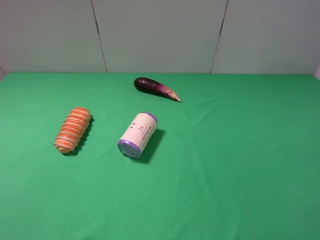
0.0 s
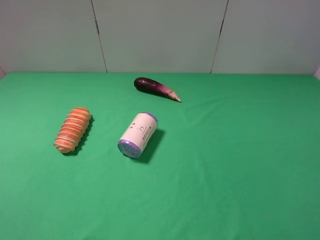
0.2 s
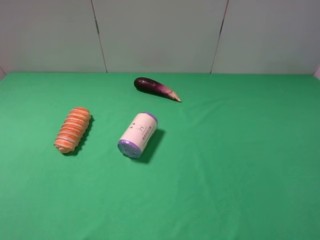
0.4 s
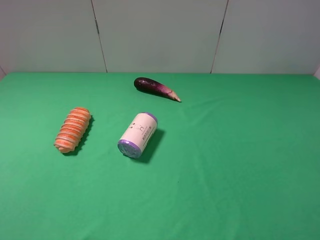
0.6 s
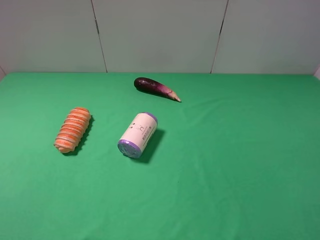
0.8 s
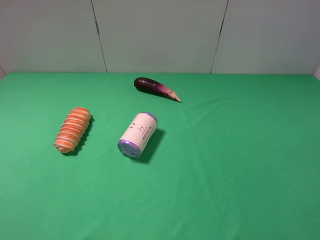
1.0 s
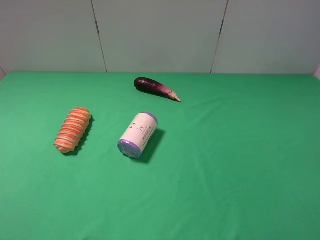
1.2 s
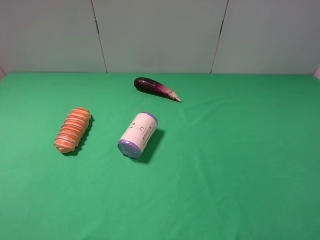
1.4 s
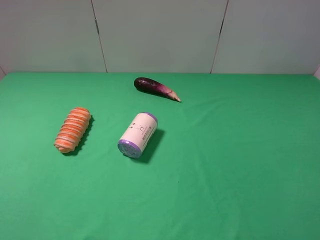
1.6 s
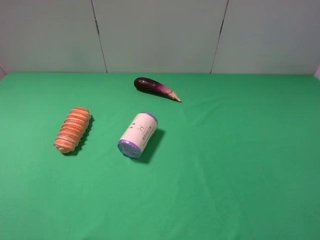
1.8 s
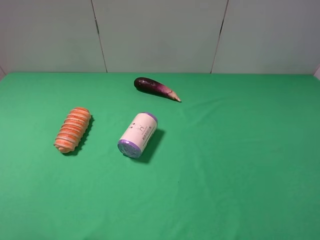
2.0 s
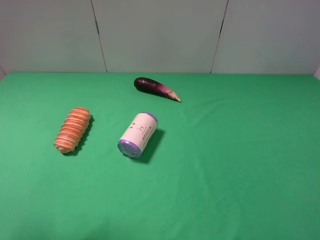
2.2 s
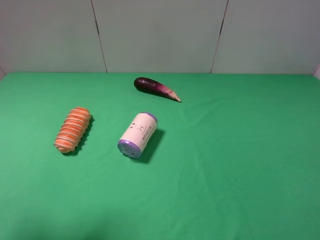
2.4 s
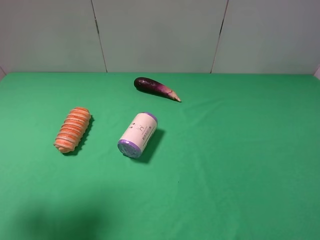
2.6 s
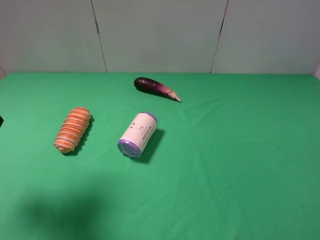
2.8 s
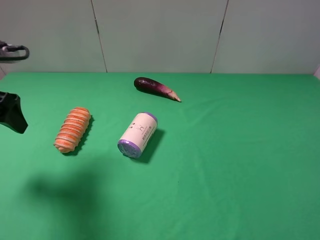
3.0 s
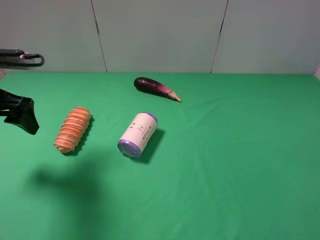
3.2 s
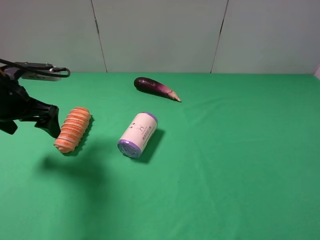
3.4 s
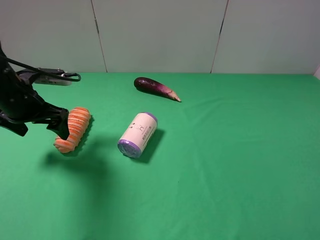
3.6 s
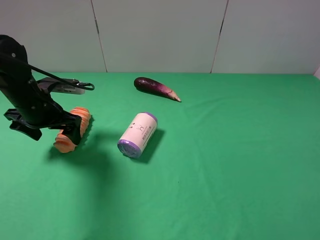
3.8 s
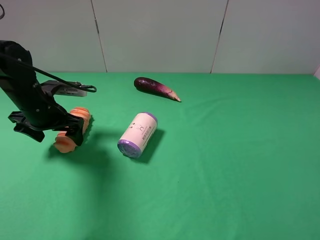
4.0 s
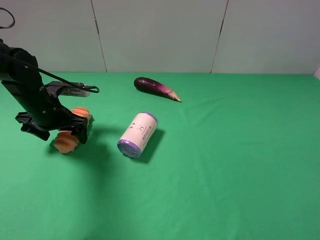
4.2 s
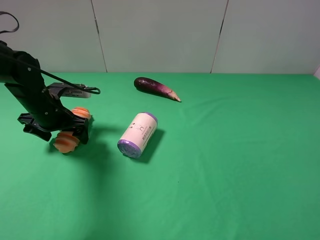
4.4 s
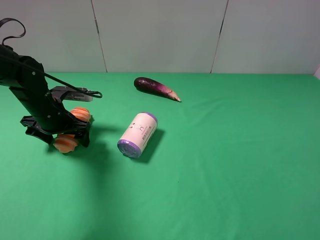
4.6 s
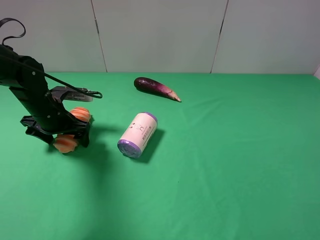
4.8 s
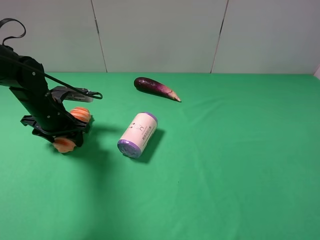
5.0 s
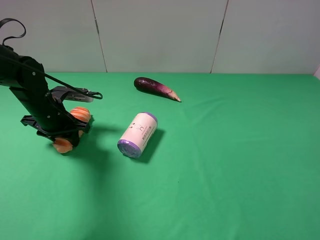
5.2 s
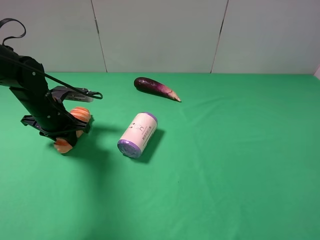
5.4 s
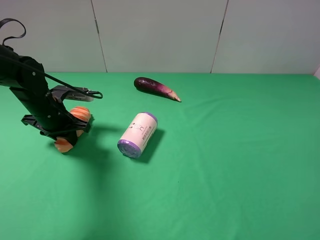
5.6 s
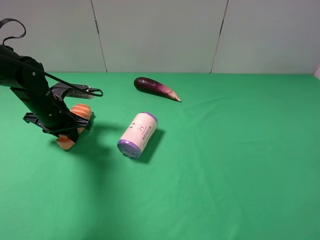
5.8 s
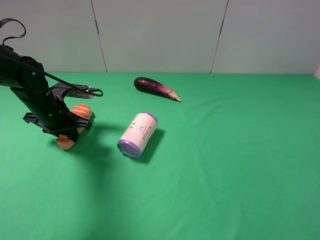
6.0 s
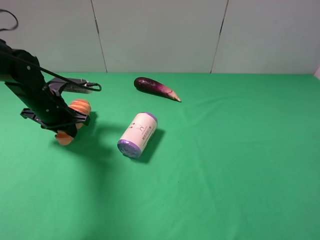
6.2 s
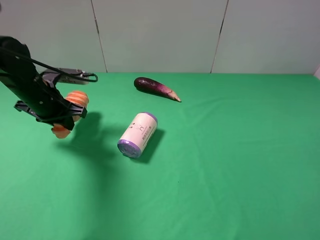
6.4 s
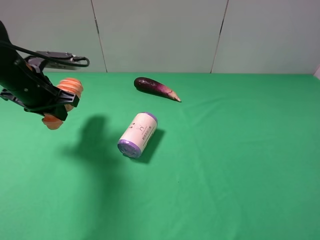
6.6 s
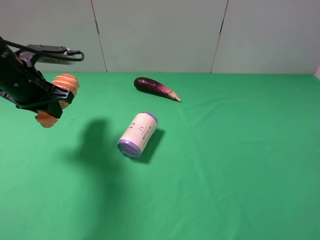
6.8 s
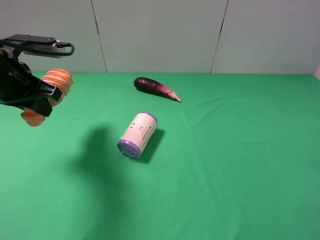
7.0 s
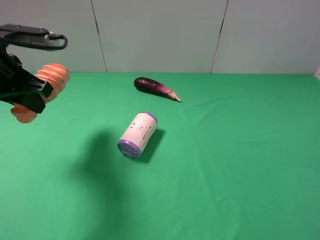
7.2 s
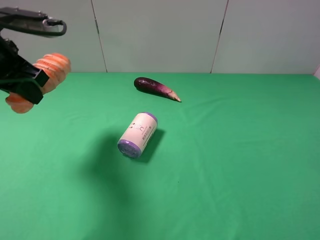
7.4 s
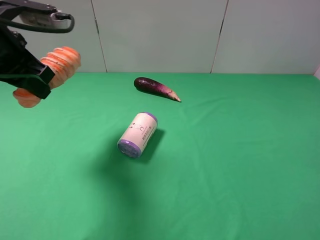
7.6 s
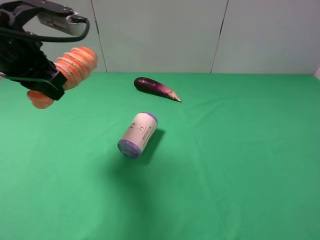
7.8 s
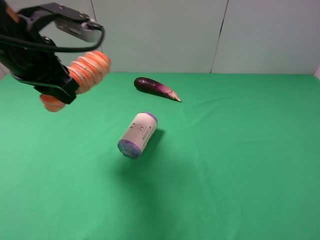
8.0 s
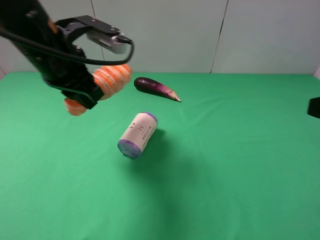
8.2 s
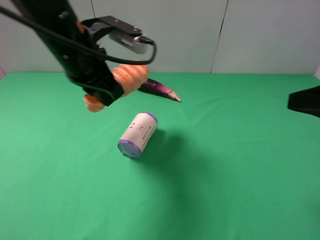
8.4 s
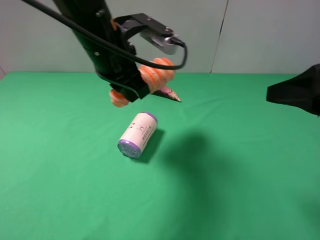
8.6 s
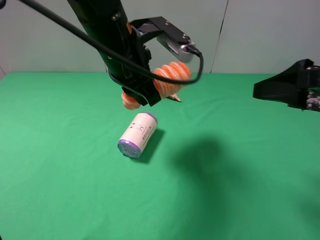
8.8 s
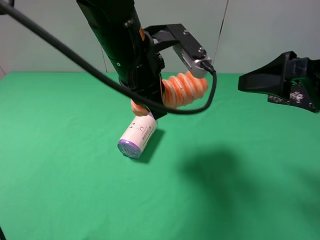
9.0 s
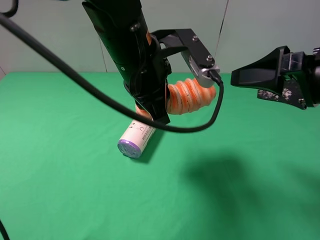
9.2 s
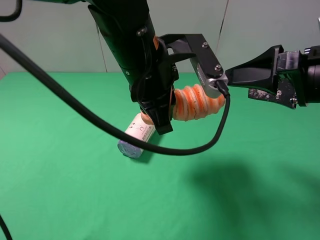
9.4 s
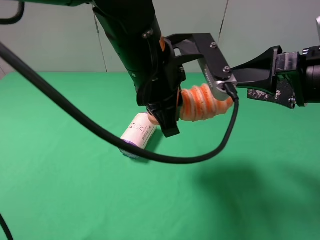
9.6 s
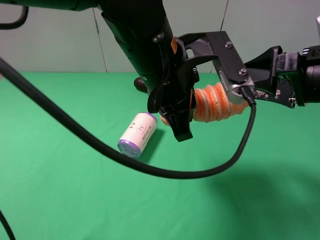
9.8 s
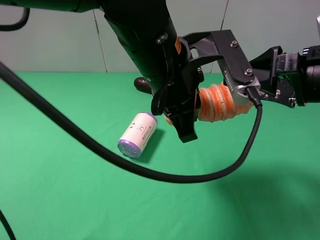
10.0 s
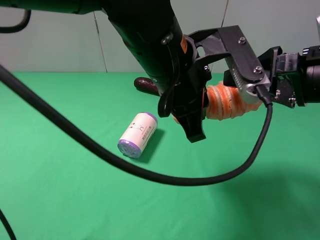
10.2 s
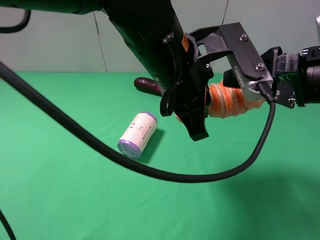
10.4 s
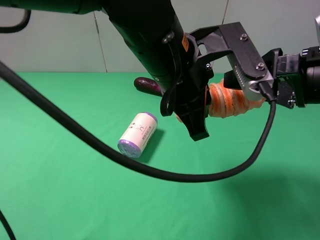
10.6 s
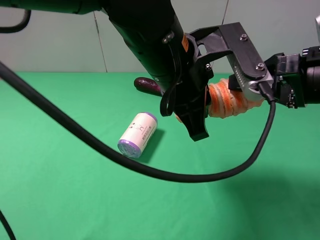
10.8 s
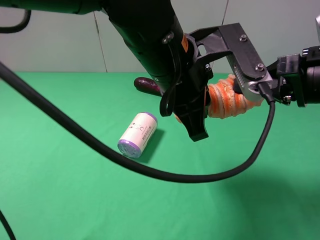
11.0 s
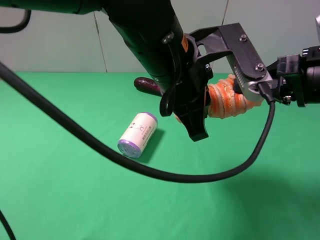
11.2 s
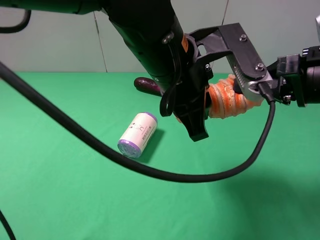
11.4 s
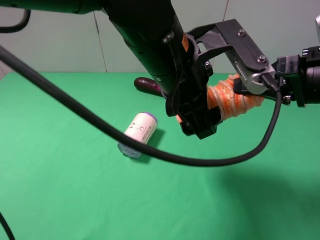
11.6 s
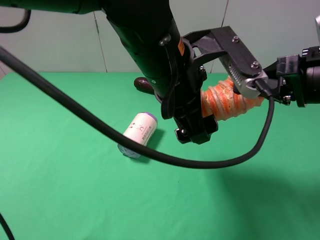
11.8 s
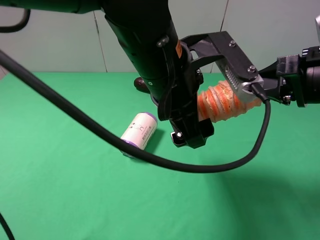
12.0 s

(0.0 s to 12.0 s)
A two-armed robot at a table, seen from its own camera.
Task of the whole recording: use the left gripper to pick up the item and transfer it from the left gripper to the right gripper.
Step, 0.0 s - 5.8 s: Use the left gripper to grab the long bread on the left side of the table.
1.6 s - 3.0 s: The left gripper travels forward by approximately 20 cm.
3.0 s - 4.4 s: The left gripper is displaced downward, forward and to the right by some 15 cm.
4.4 s - 6.0 s: The left gripper closes.
6.0 s - 7.6 s: The left gripper shifts some 20 cm upward.
7.6 s - 9.0 s: The right gripper travels forward by some 15 cm; the left gripper heads to the right, covering roughly 20 cm.
9.0 s - 10.4 s: The left gripper ends up approximately 5 cm from where it was.
10.4 s - 12.0 s: The left gripper opens; the right gripper closes up.

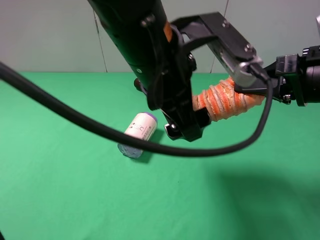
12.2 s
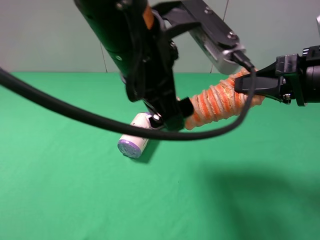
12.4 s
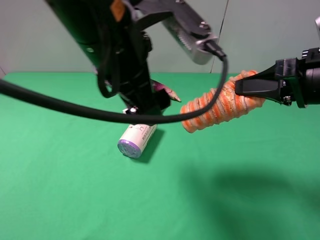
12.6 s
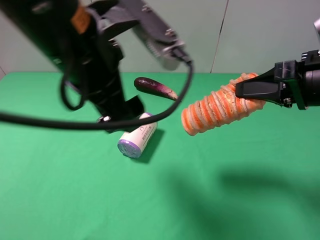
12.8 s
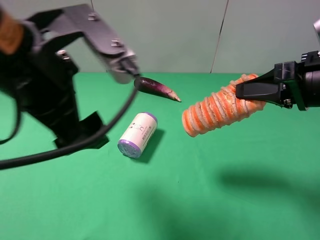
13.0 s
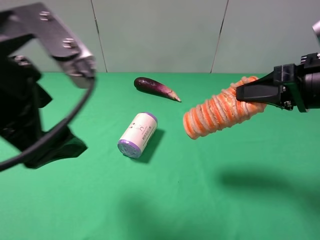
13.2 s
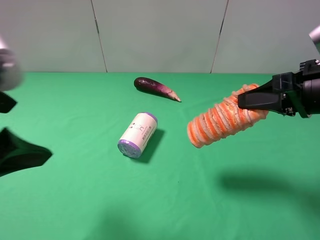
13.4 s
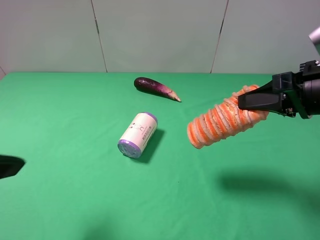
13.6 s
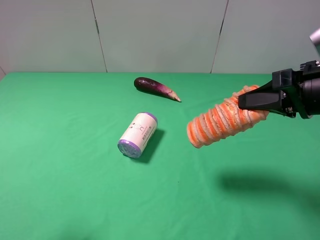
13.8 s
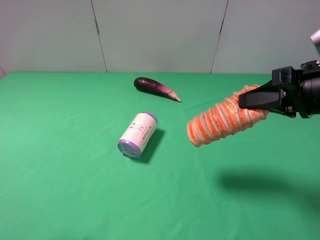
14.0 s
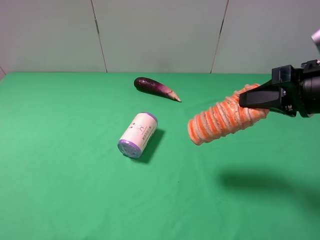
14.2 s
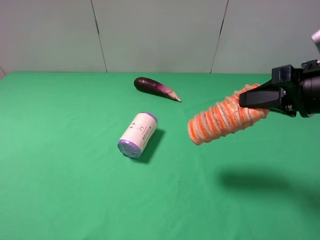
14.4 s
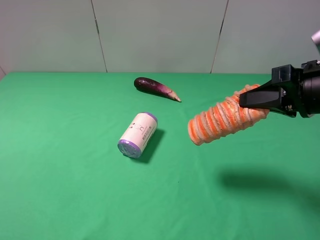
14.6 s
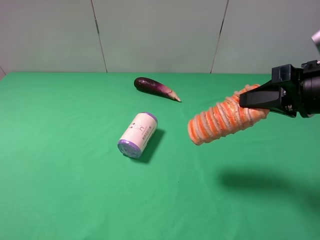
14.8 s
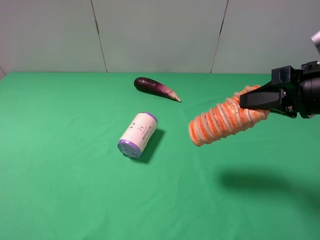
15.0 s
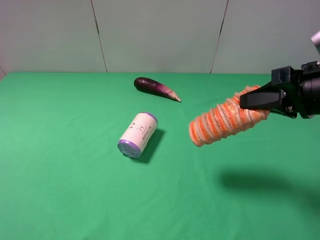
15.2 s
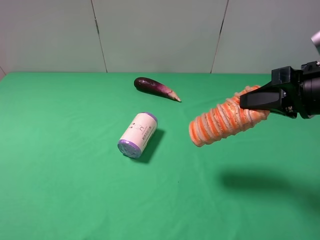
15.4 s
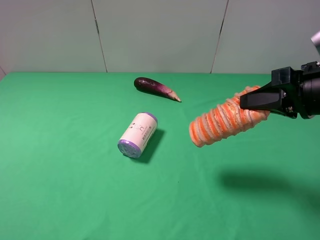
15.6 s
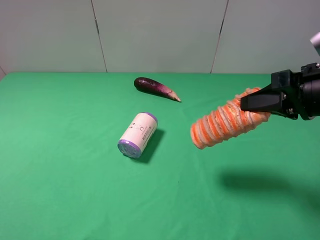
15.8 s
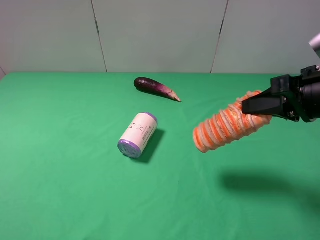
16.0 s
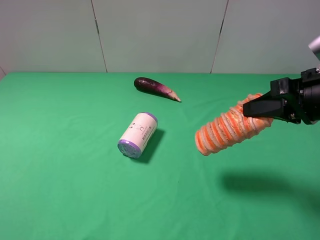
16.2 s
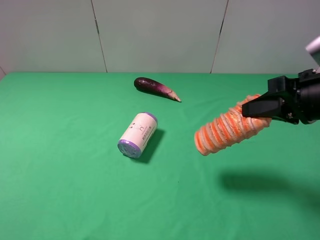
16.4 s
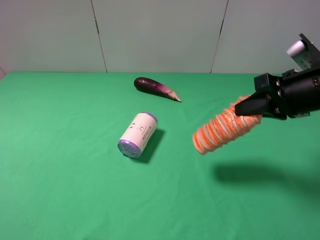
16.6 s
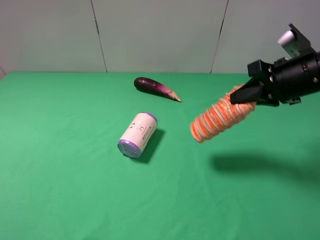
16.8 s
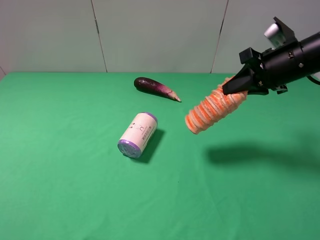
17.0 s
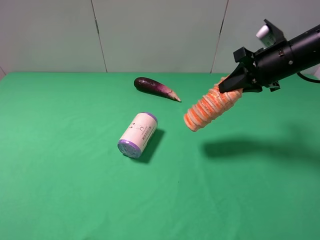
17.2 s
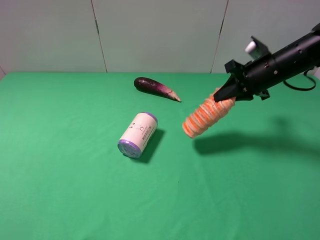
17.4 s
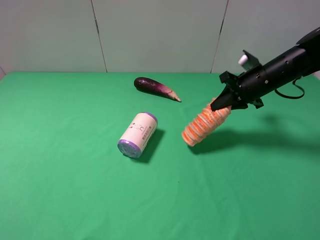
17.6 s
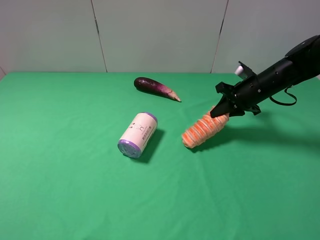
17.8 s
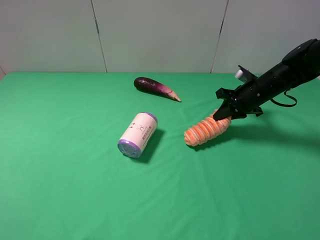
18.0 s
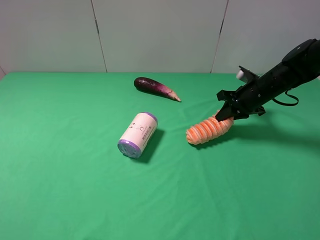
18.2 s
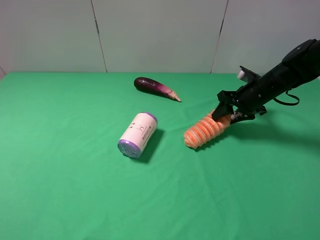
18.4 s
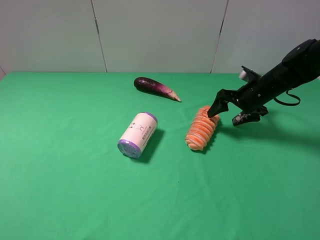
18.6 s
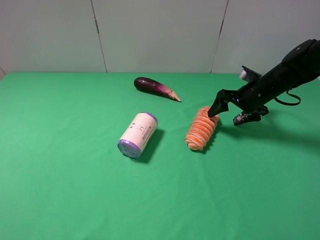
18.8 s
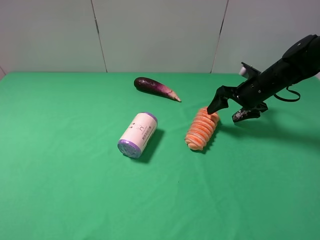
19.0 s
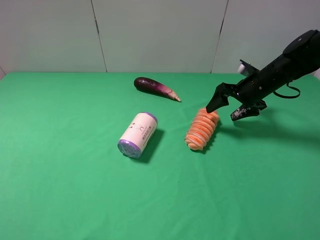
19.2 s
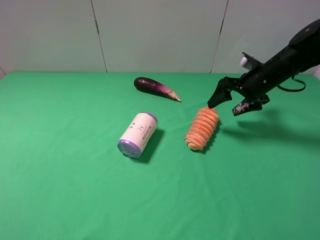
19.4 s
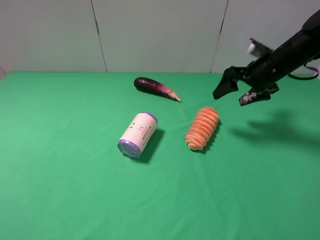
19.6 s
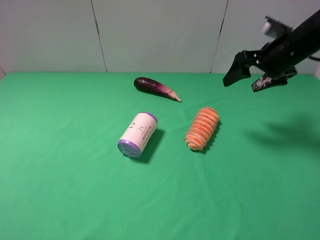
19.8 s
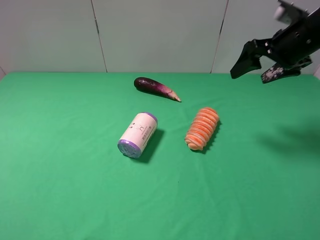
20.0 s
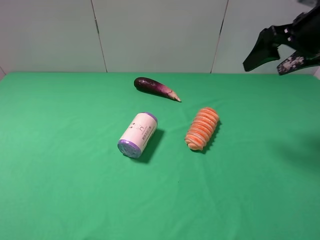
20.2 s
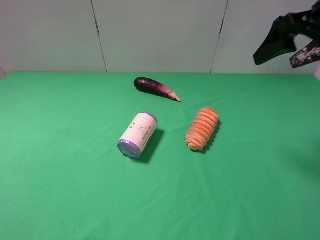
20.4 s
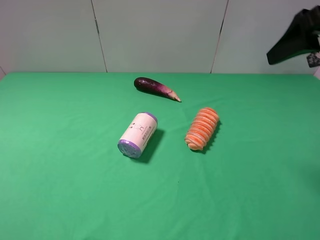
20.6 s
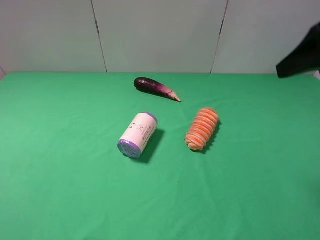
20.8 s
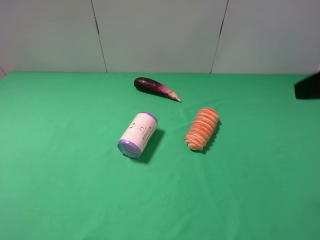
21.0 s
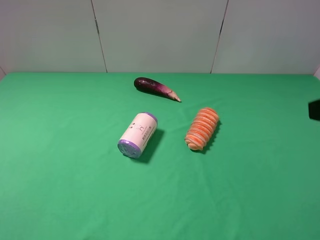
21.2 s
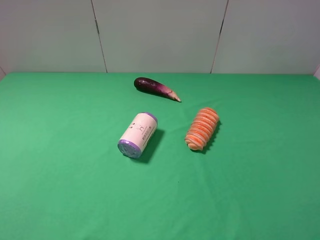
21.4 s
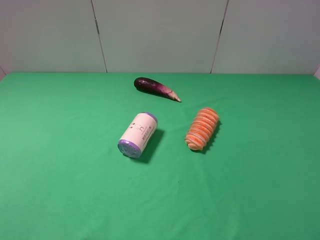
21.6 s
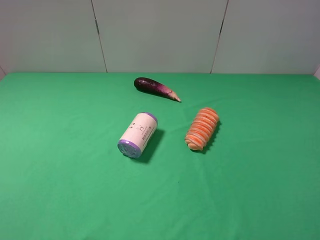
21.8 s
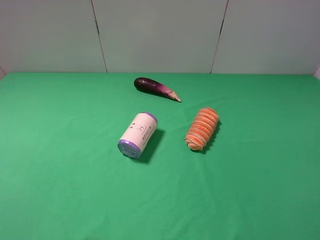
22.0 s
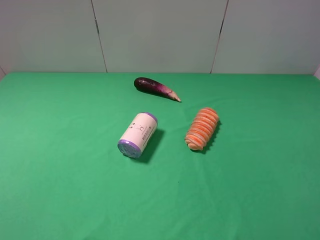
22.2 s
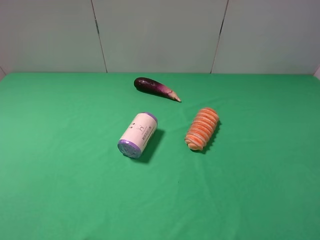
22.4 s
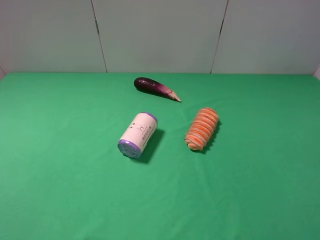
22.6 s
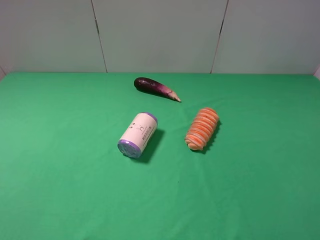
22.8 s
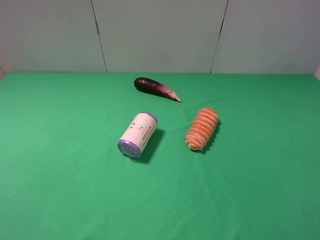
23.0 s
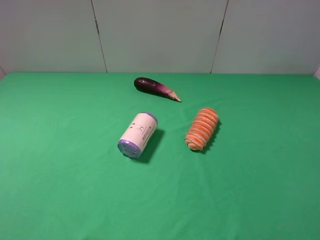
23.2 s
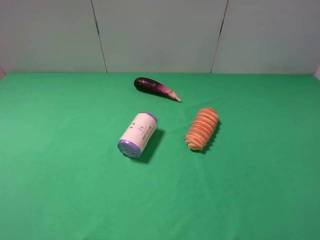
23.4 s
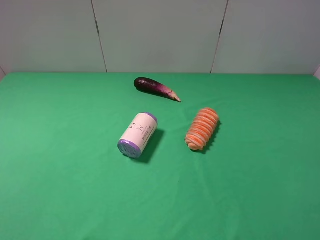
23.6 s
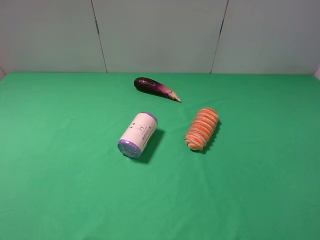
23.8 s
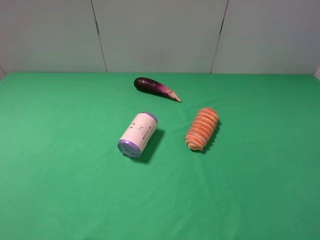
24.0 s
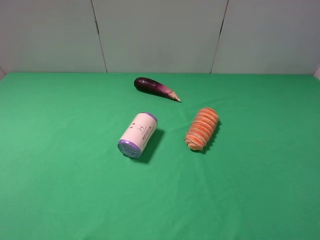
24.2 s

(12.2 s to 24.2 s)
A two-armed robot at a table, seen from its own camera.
Task of the whole recording: use the left gripper to pick up the item and transfer it from the left gripper to the right gripper.
Step, 12.4 s - 19.2 s: The right gripper places long bread on the right side of the table.
12.2 s - 13.8 s: The left gripper shifts roughly 30 cm to the left and backward.
15.2 s - 16.6 s: The right gripper moves about 5 cm.
16.6 s - 18.2 s: The right gripper goes about 20 cm forward and downward.
18.2 s - 19.8 s: The right gripper travels upward by some 15 cm, and opens its fingers.
19.8 s - 21.2 s: The right gripper moves backward, approximately 25 cm.
22.6 s - 24.2 s: The two grippers keep their place.
